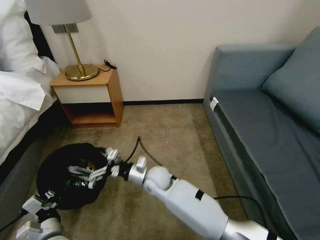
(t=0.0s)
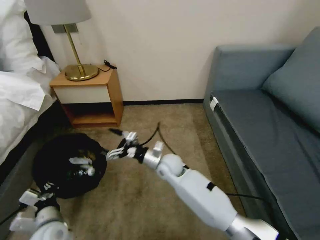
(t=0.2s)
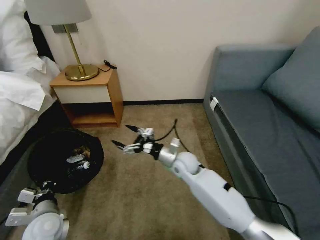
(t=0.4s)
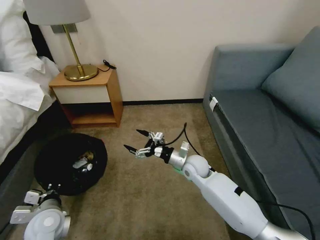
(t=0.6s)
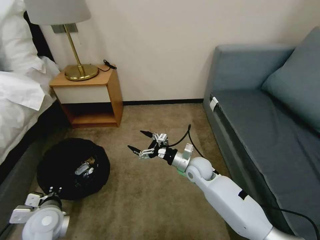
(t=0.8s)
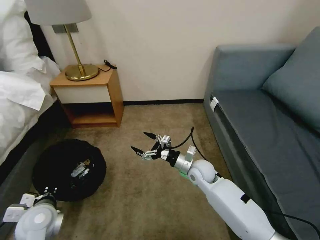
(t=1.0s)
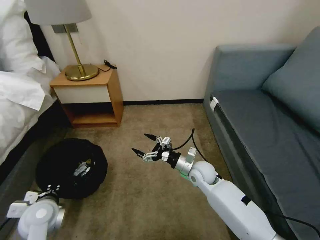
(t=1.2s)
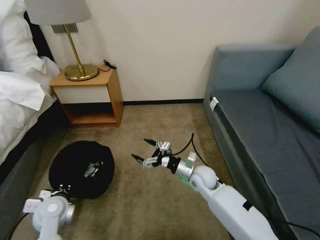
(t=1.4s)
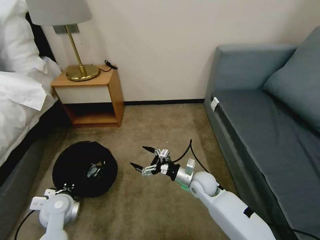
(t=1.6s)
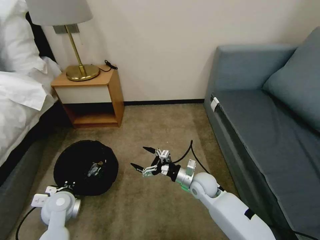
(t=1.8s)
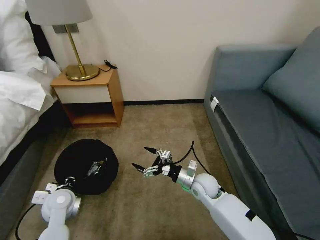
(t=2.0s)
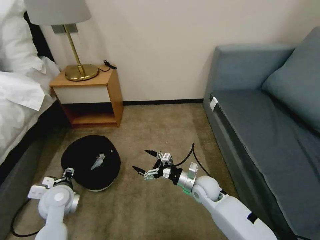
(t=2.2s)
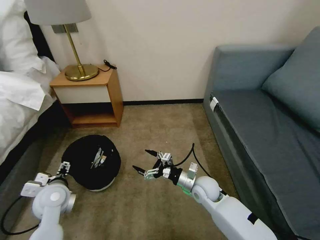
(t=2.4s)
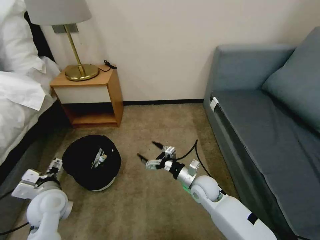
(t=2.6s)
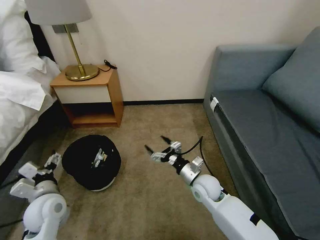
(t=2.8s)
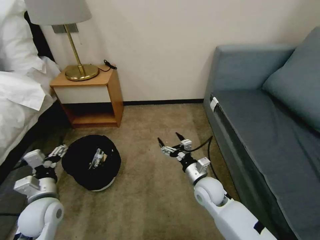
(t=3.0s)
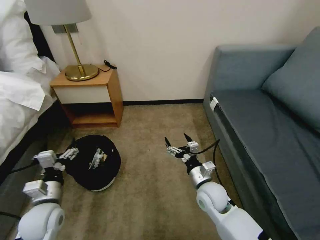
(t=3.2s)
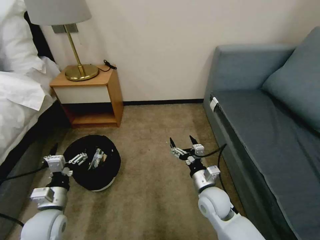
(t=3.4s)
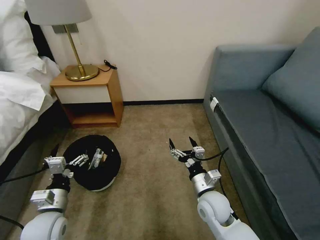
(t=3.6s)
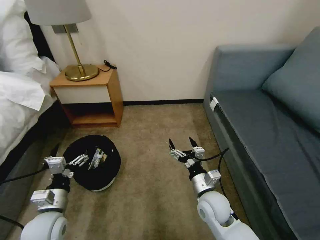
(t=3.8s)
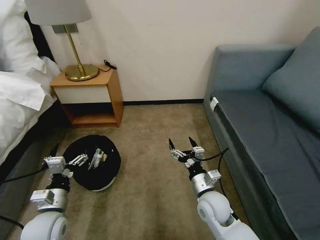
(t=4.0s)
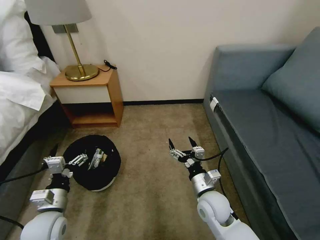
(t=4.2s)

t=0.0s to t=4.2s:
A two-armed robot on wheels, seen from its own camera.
Task of the whole recording: Pick up the trash bin, then pick up the garbage on the floor and place it into the trash bin.
t=0.0s to t=1.4s: The left gripper moves forward and upward, some 10 cm, while the right gripper heads to the right, covering roughly 15 cm.
t=1.4s to t=2.8s: The left gripper opens up.
t=2.8s to t=4.2s: The right gripper heads backward, covering approximately 5 cm.
